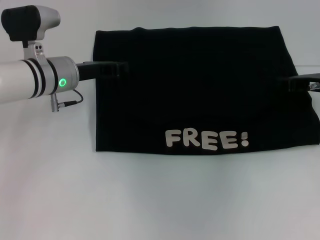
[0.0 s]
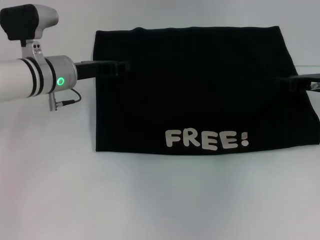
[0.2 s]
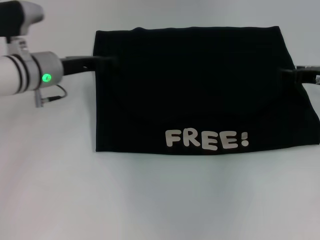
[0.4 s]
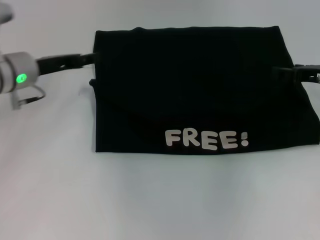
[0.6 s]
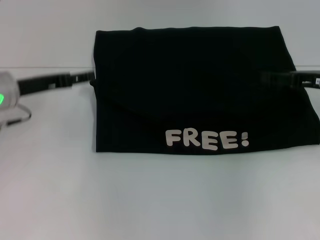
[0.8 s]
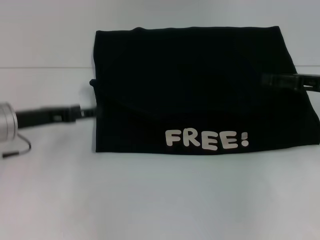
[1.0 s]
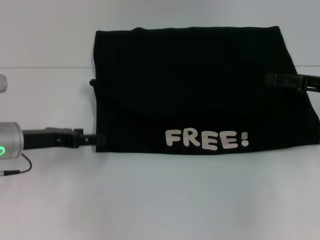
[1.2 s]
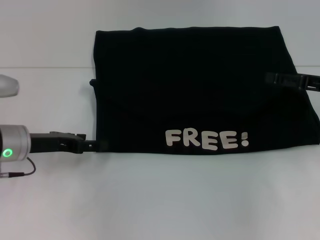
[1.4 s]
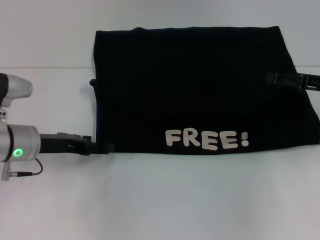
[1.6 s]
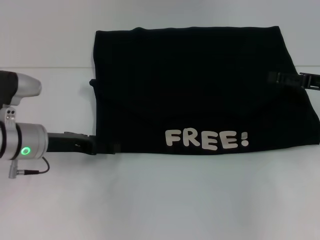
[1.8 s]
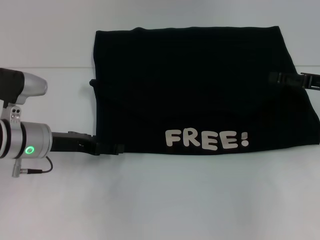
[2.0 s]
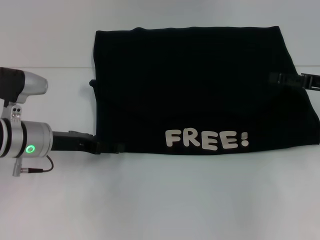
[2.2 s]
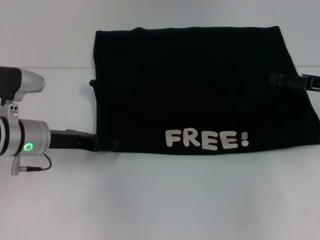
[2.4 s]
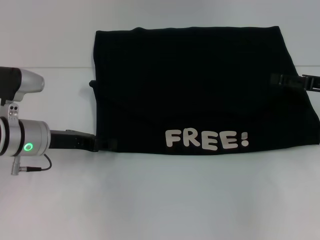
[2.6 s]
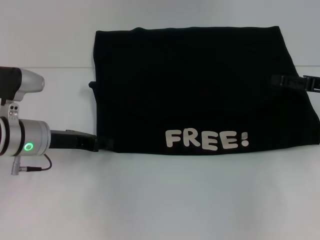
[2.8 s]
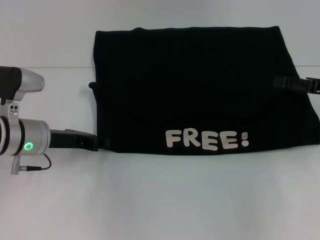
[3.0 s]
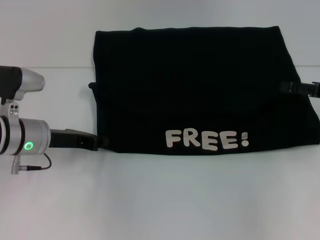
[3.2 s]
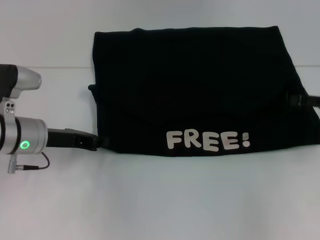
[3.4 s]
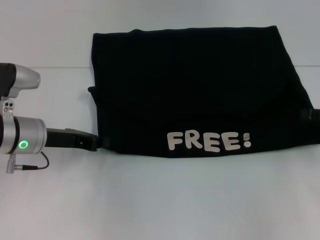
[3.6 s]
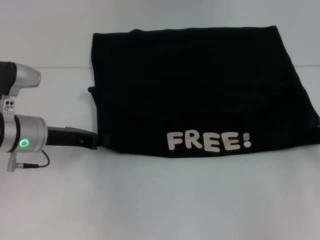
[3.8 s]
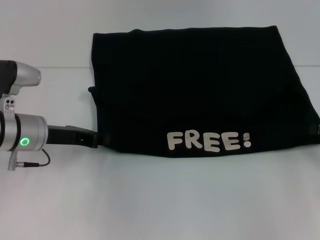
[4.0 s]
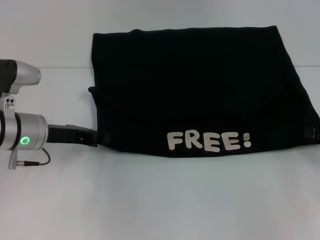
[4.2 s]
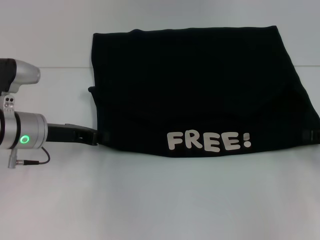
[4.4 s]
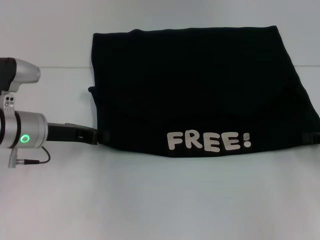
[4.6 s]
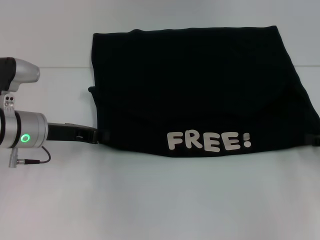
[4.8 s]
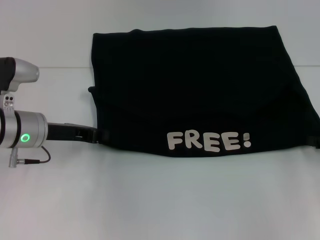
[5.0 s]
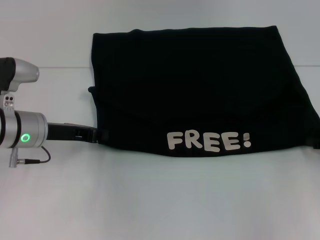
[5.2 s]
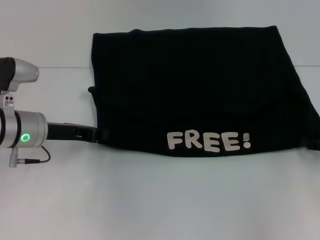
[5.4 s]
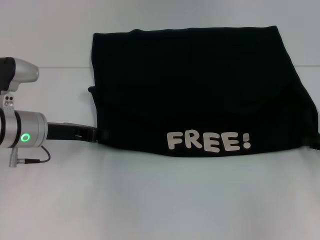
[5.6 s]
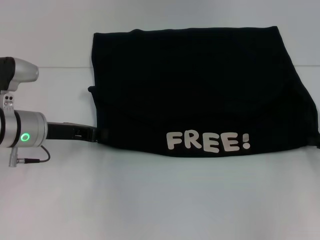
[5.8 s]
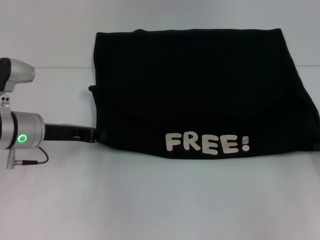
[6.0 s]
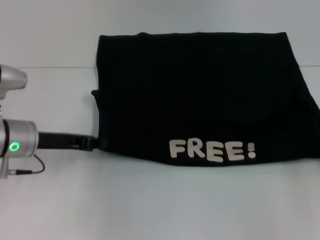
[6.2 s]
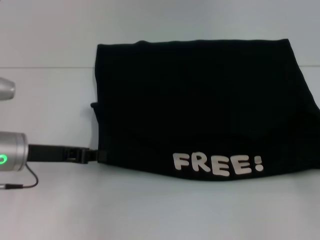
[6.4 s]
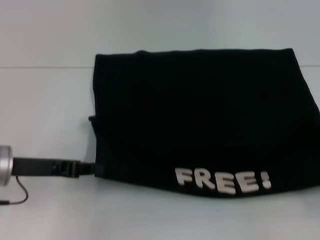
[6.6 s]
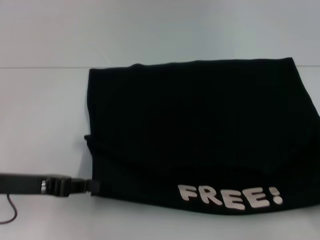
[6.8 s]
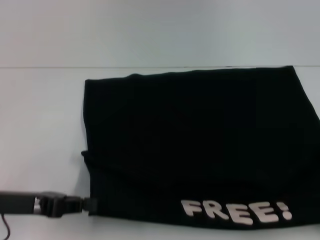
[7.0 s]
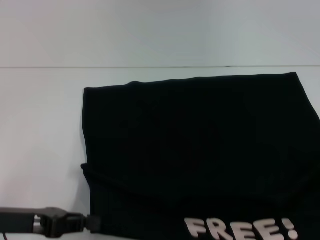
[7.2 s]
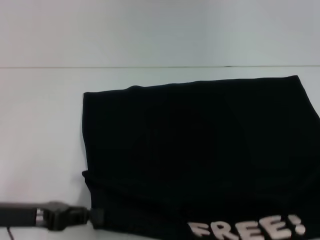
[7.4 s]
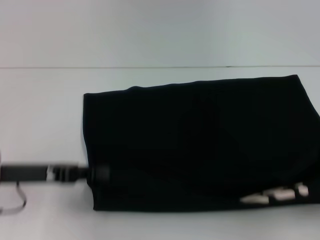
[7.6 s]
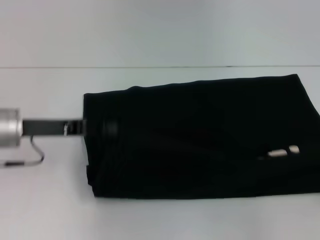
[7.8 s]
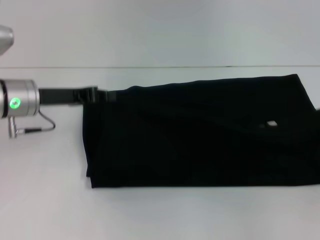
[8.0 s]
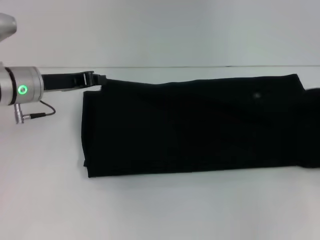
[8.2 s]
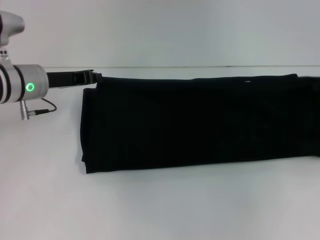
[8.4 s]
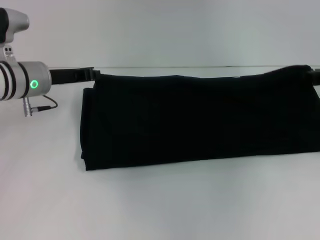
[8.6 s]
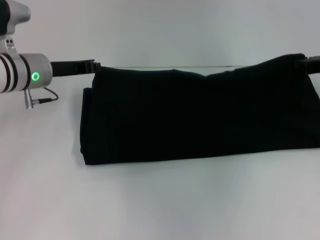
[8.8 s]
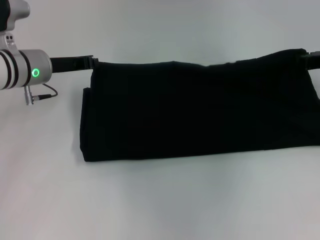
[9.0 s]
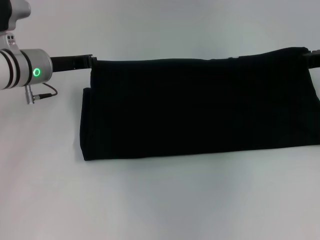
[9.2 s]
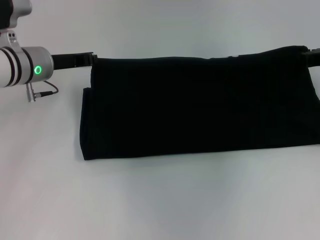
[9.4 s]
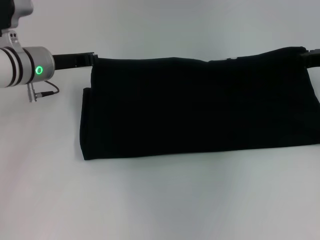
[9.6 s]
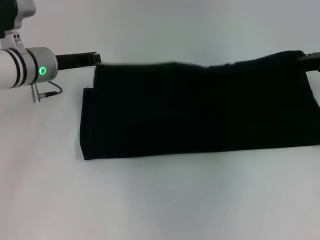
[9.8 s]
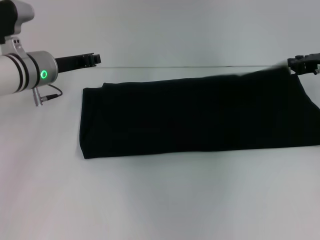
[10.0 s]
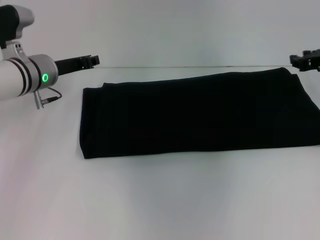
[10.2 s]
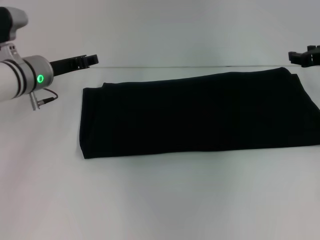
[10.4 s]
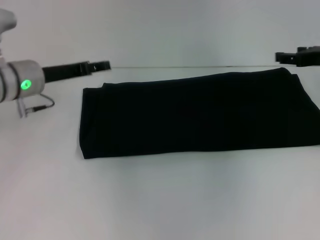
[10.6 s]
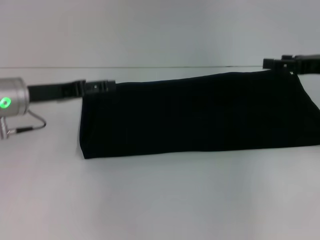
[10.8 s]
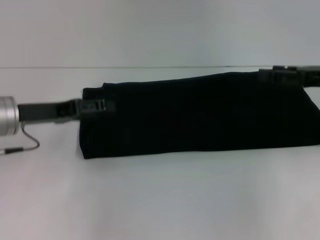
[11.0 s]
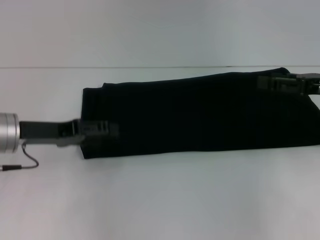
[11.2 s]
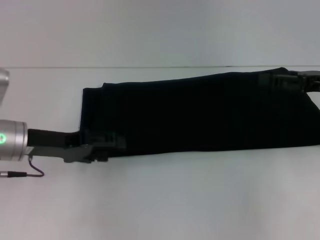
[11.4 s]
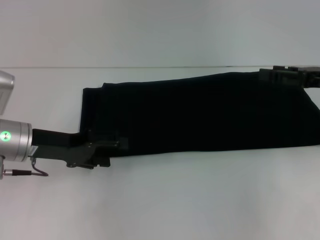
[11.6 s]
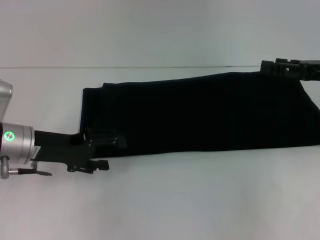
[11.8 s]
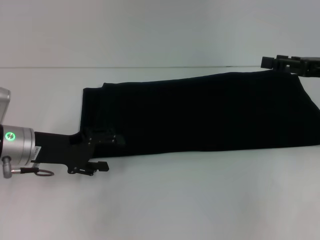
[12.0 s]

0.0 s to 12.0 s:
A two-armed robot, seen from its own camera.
Step, 0.8 to 6.8 s: Pull the clothes with your left hand.
Step, 0.8 to 6.8 s: Pull the clothes with your right hand.
Step, 7.0 to 10.0 s: Fold the clothes with your right hand.
0.0 to 1.6 s: The left gripper is displaced backward and to the left by about 10 cm, and opens up. The right gripper ends up roughly 5 cm from where it was, and opens up.
1.6 to 3.0 s: The left gripper closes its fingers.
3.0 to 4.4 s: The right gripper shifts by some 5 cm.
4.4 to 6.0 s: The right gripper closes.
6.0 to 7.6 s: The right gripper is displaced backward and to the right by approximately 15 cm. The left gripper shifts roughly 10 cm backward.
7.6 to 9.0 s: The right gripper is displaced forward and to the left by roughly 30 cm; the left gripper travels forward by approximately 15 cm.
9.0 to 10.4 s: The right gripper opens up.
10.4 to 12.0 s: The two grippers go roughly 10 cm backward. The left gripper opens its fingers; the right gripper opens up.

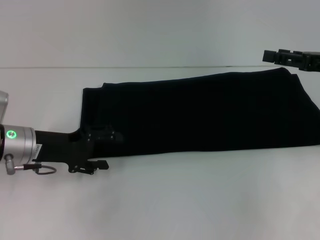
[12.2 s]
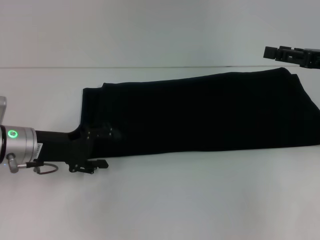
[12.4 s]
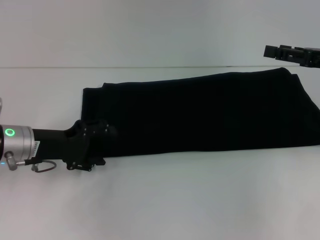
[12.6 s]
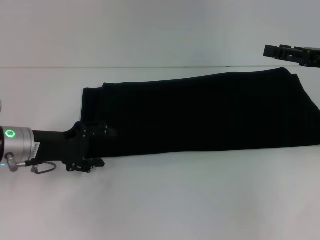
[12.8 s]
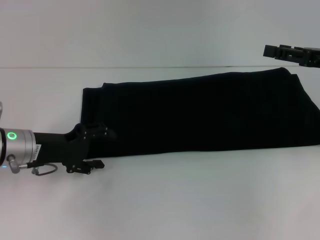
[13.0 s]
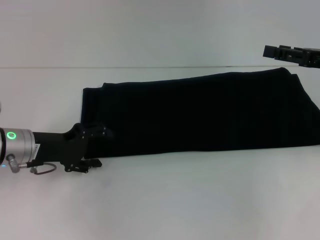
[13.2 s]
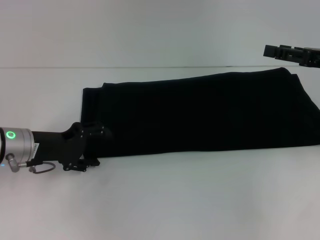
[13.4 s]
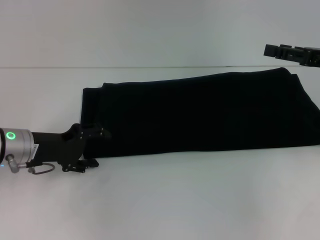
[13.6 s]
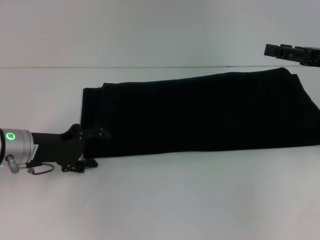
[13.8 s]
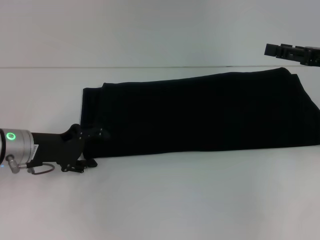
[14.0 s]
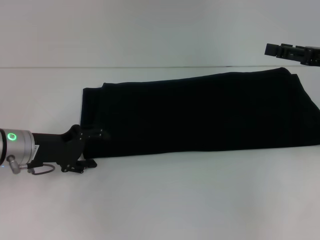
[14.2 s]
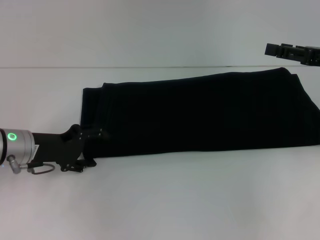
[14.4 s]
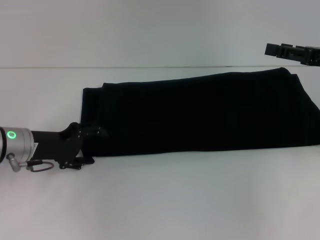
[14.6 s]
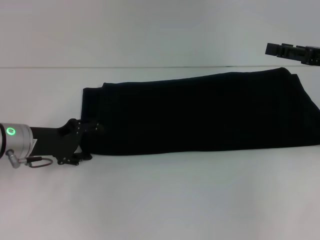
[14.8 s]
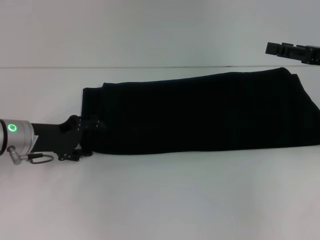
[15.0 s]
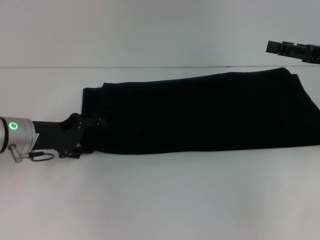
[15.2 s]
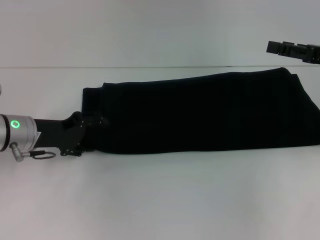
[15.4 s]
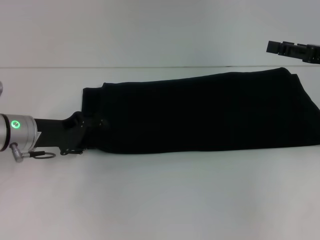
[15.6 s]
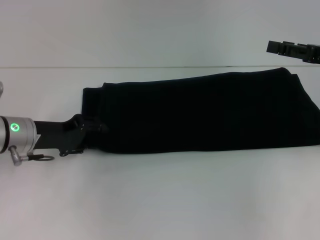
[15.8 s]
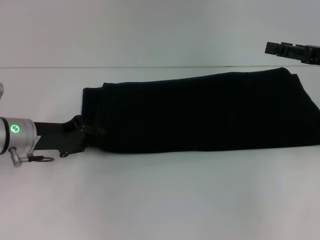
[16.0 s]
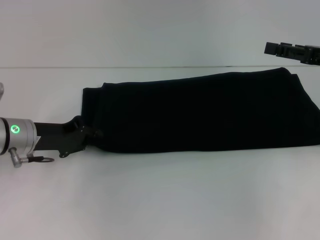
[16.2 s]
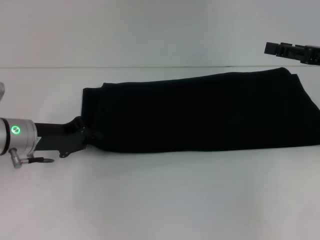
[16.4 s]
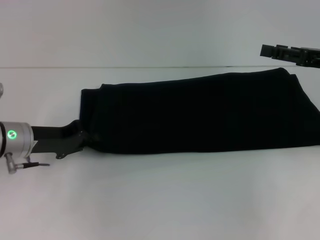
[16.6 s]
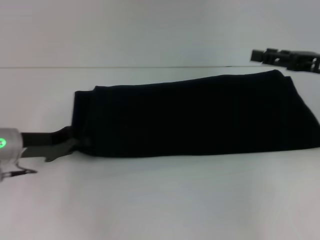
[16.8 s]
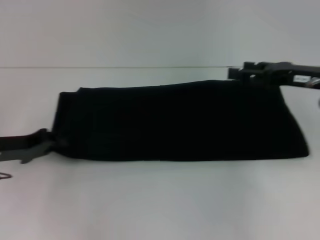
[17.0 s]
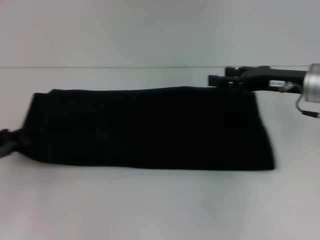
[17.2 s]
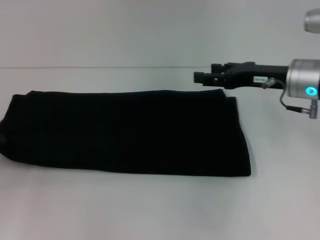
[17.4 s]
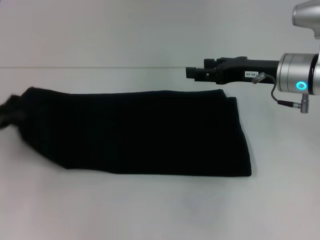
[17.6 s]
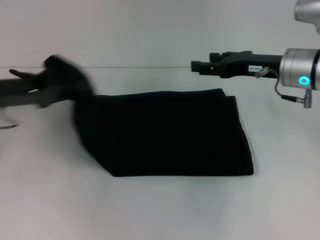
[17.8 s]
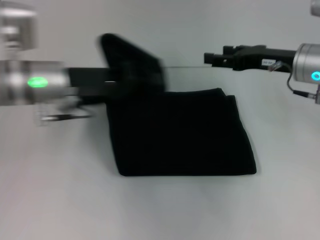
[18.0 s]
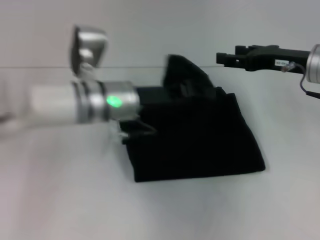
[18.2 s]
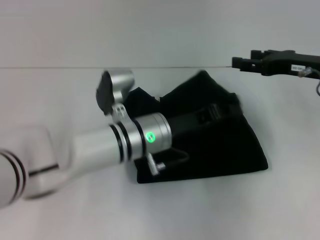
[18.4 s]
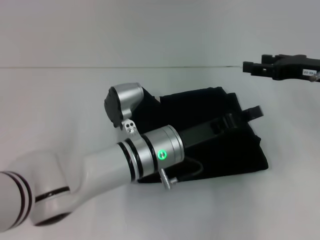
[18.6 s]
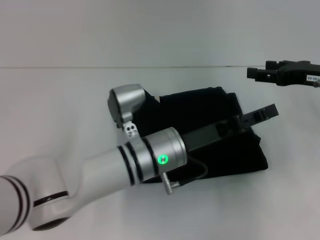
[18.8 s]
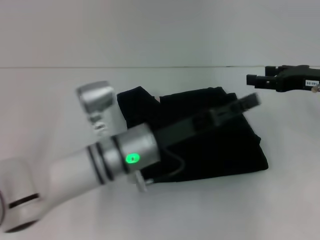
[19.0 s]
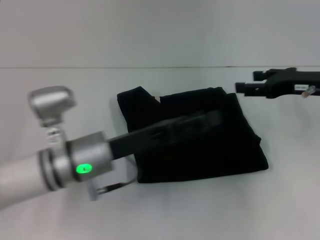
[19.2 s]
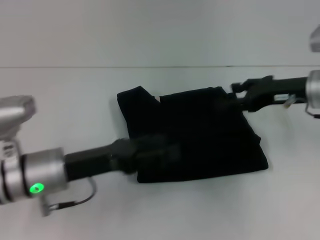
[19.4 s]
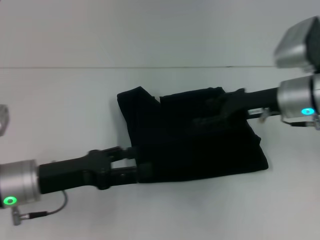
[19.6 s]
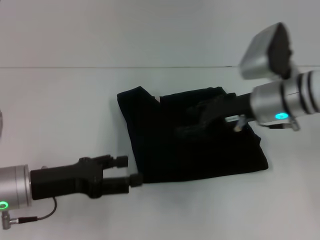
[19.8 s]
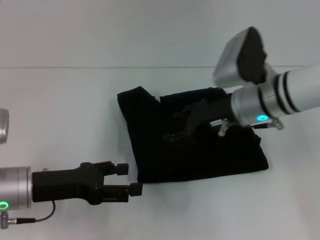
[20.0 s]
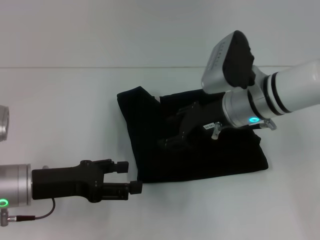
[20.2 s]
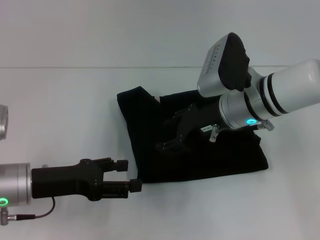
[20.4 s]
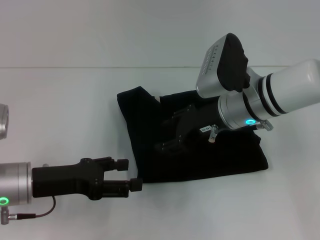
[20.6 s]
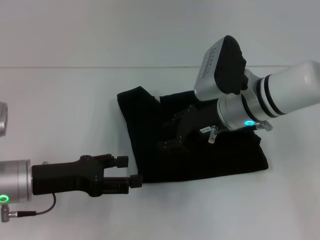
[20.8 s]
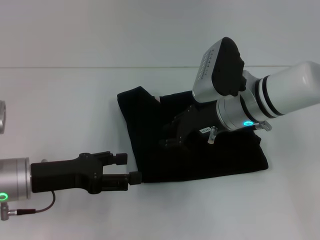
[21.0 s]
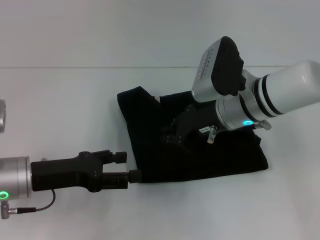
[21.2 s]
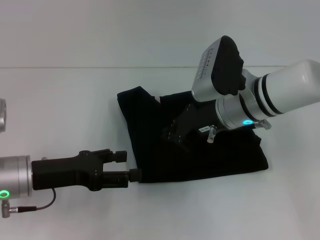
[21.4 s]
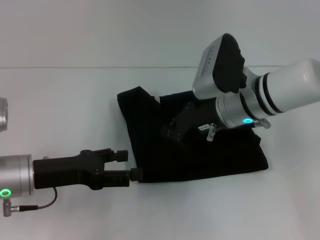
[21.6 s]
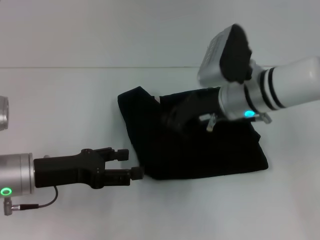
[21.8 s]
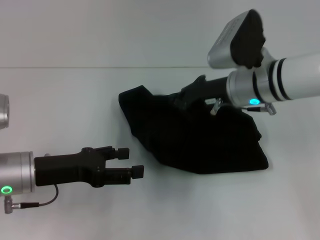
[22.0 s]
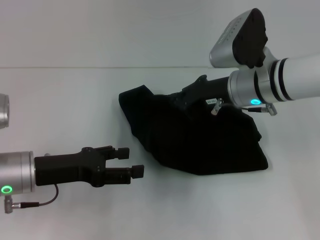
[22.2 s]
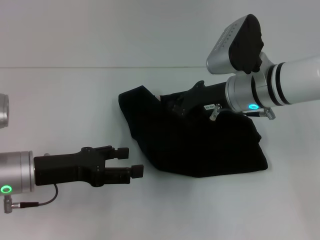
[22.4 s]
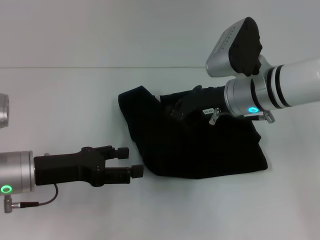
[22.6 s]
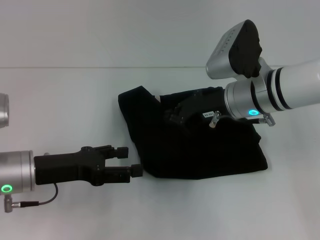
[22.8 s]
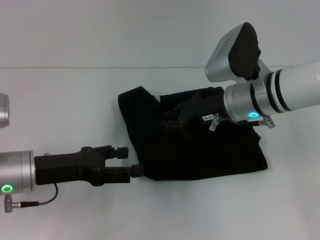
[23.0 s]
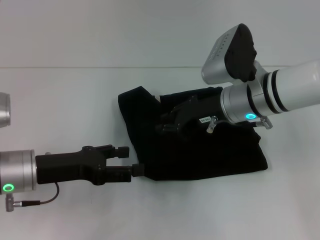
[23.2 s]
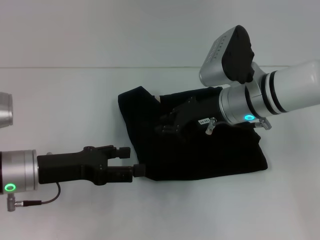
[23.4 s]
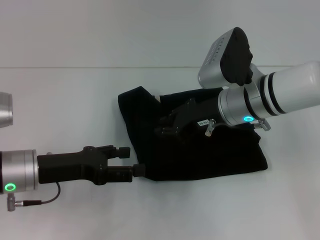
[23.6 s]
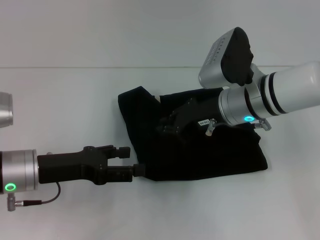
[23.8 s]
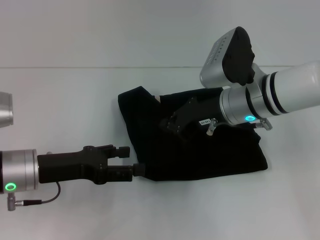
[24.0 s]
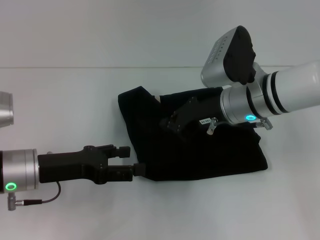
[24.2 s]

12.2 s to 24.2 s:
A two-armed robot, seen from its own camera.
Step, 12.2 to 18.6 s: Fold the clothes with your left hand.
12.2 to 15.2 s: The grippers make only small movements.
15.2 to 16.6 s: The left gripper closes its fingers.
16.6 to 18.2 s: The left gripper goes roughly 15 cm to the right; the right gripper moves to the left, some 5 cm.
18.2 to 19.8 s: The left gripper is displaced to the left and backward by approximately 20 cm, and opens its fingers. The right gripper goes about 10 cm to the left.
19.8 to 21.2 s: The right gripper closes its fingers.
21.2 to 22.6 s: The grippers move only a little.
22.6 to 24.2 s: Both grippers stay put.
